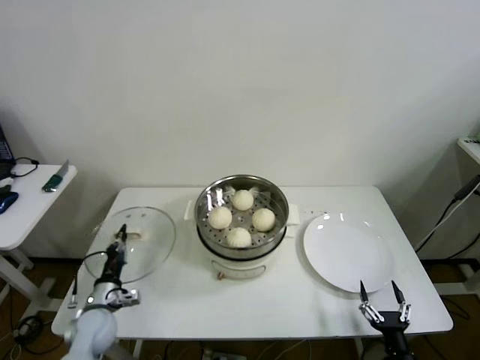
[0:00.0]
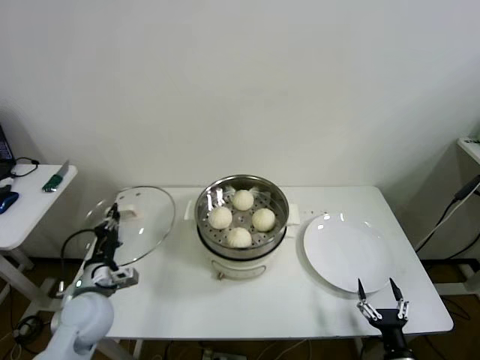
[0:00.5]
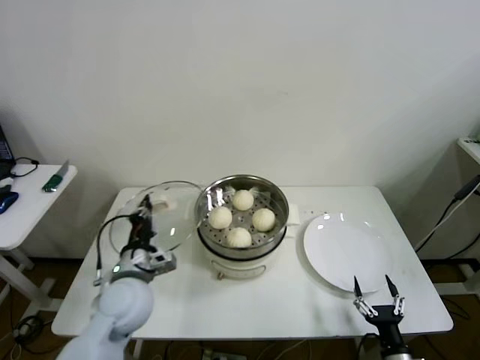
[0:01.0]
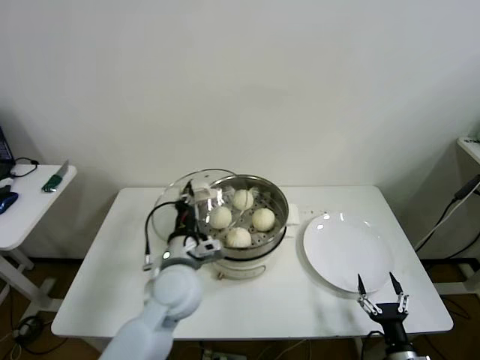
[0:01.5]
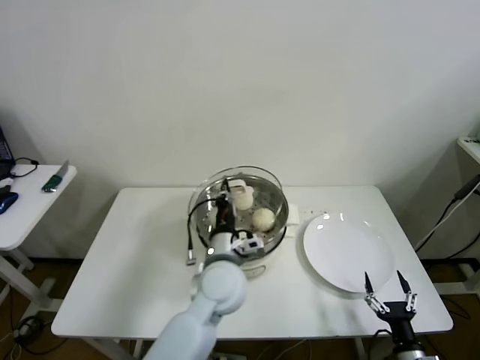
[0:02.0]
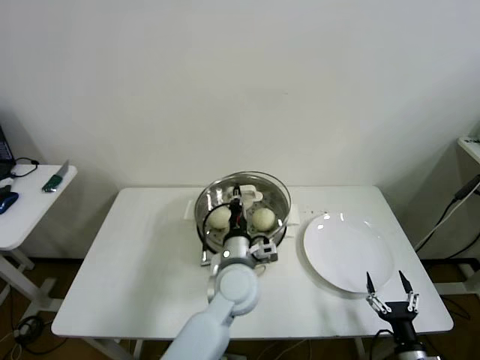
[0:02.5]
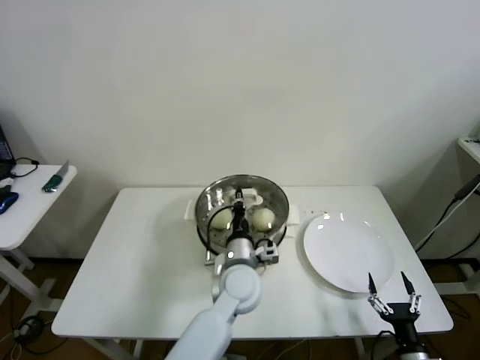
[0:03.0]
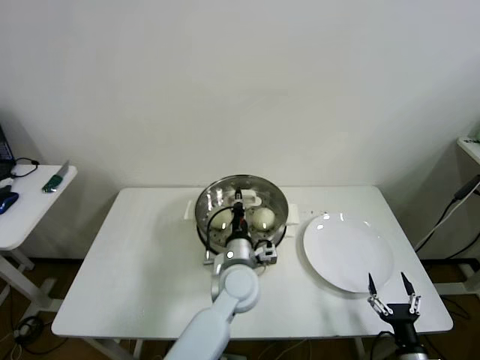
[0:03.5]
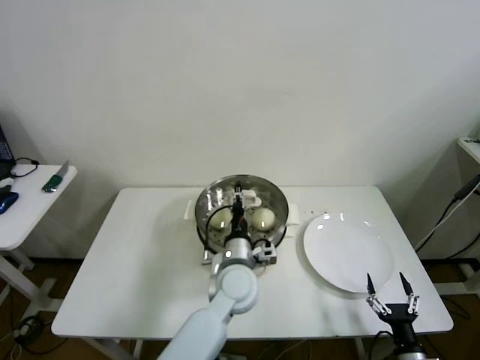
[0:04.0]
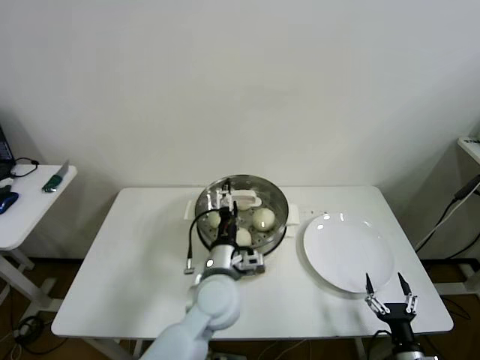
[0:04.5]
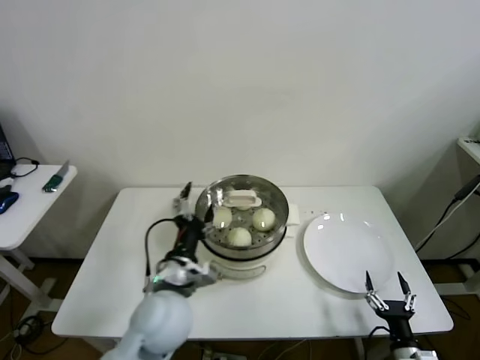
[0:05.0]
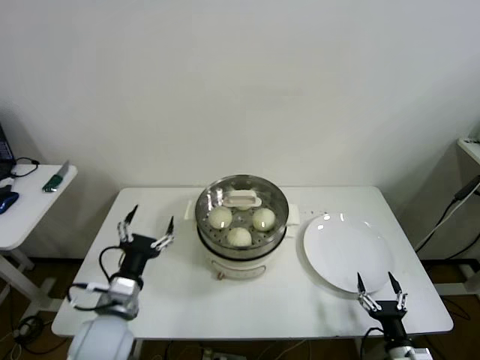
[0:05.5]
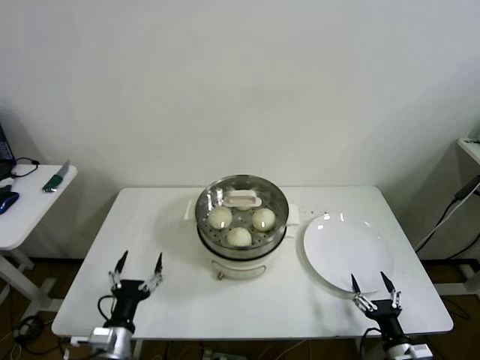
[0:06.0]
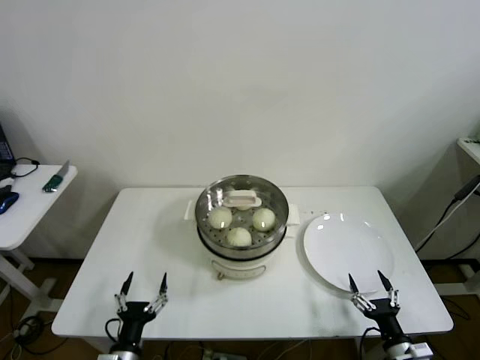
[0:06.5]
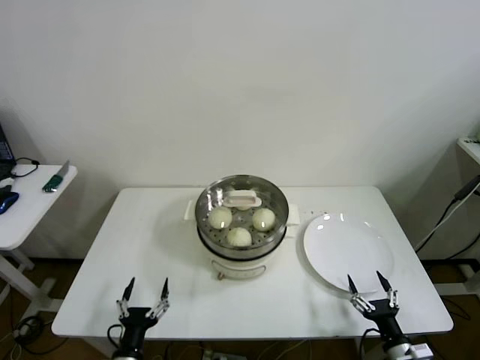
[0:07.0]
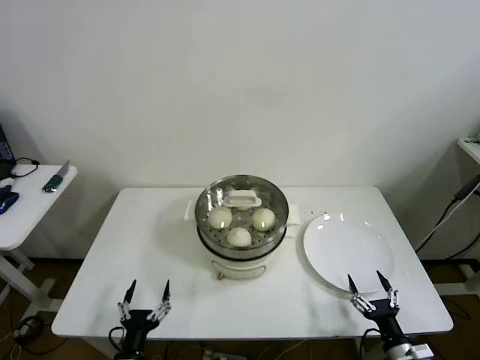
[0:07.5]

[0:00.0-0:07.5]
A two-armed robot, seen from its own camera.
Step, 0:00.0 to 0:03.5: Place the pot lid on the steamer with left gripper.
0:00.0 to 0:02.0: The left gripper moves to the right and upward, roughly 35 cm.
0:02.0 to 0:04.0: The left gripper heads downward, covering some 5 cm, and opens its fingers.
0:04.0 to 0:05.5: The left gripper goes approximately 25 cm to the left and backward, and opens its fingers.
0:05.5 to 0:07.5: The left gripper travels downward and backward by approximately 20 cm.

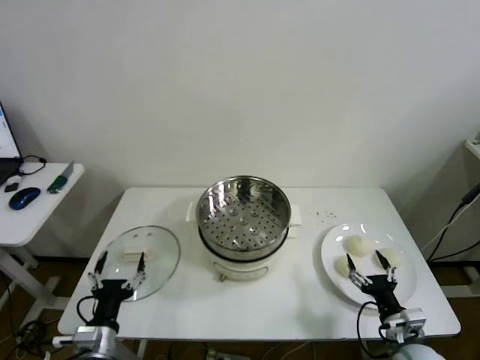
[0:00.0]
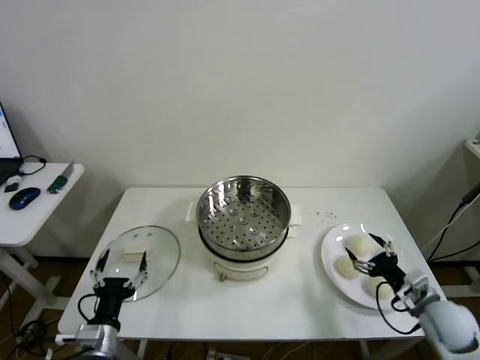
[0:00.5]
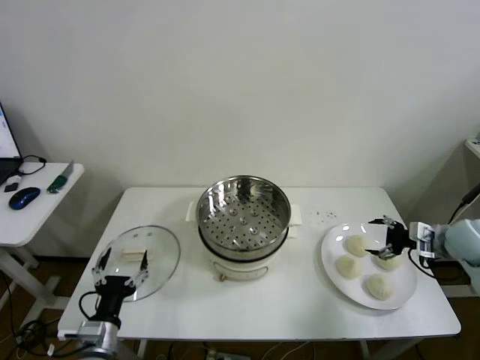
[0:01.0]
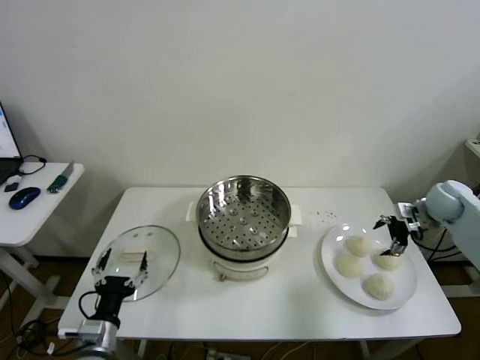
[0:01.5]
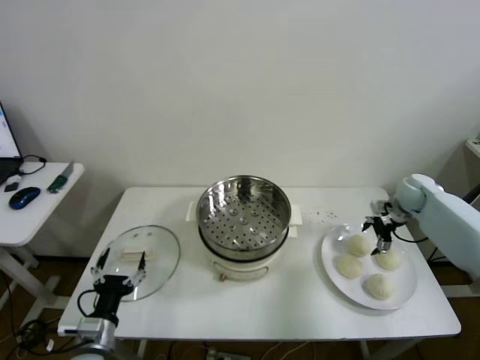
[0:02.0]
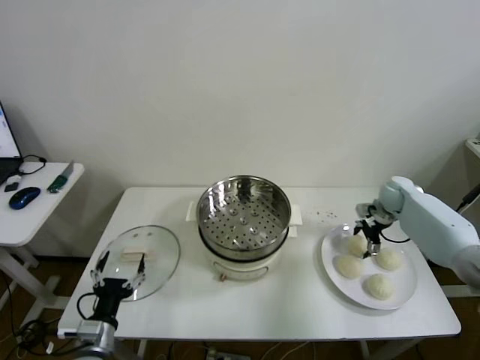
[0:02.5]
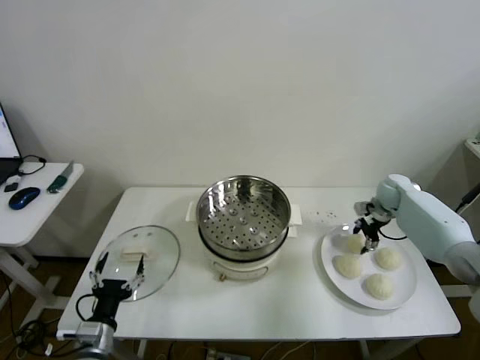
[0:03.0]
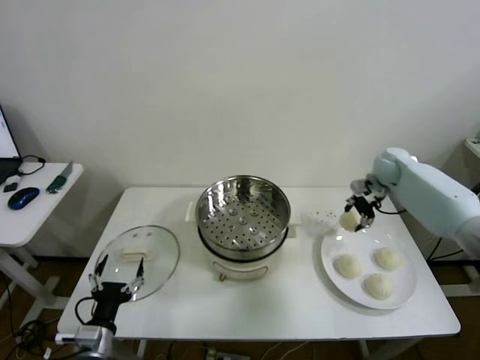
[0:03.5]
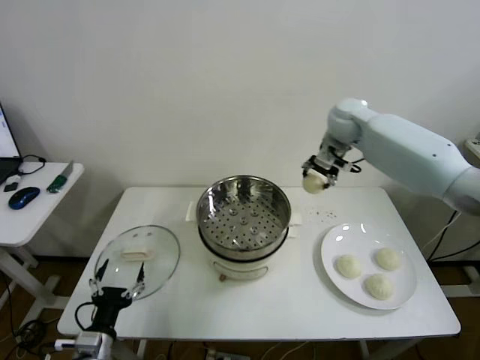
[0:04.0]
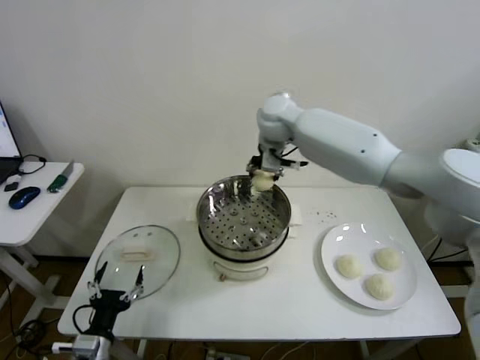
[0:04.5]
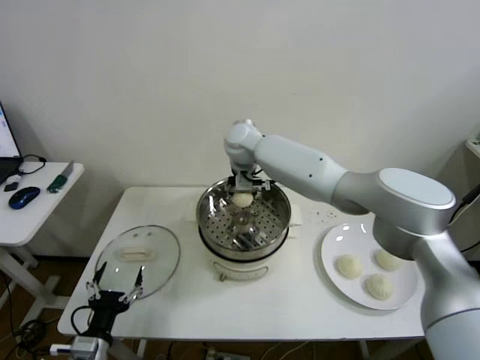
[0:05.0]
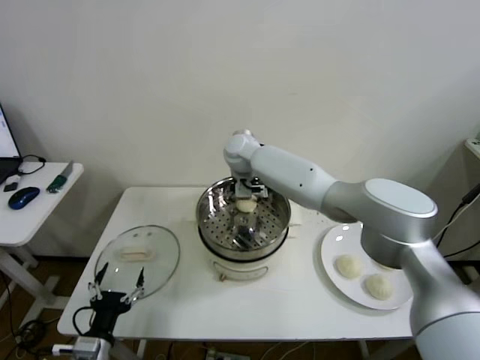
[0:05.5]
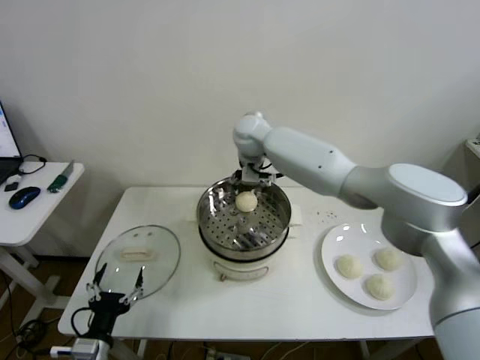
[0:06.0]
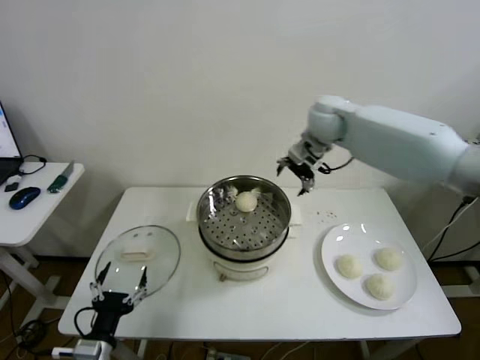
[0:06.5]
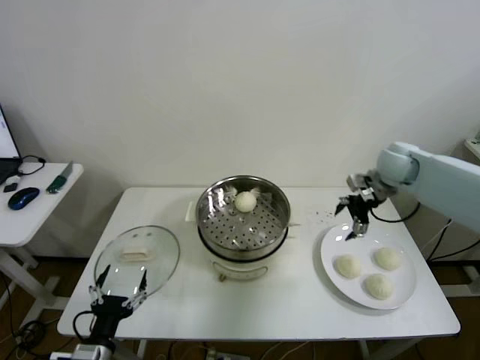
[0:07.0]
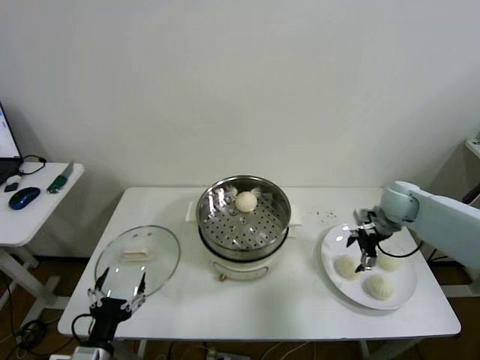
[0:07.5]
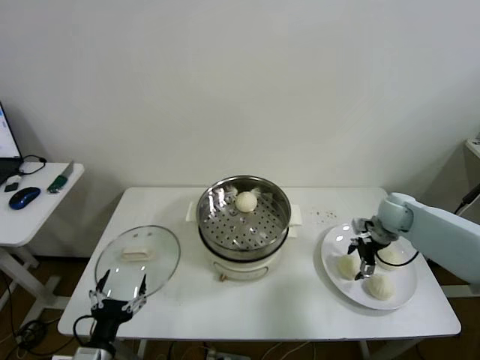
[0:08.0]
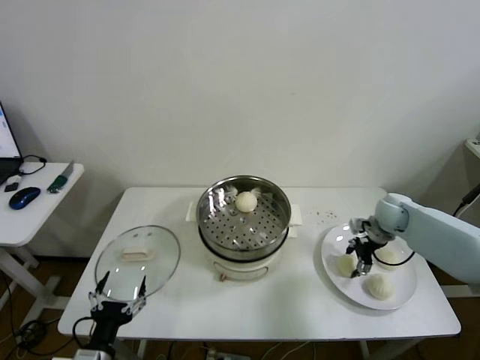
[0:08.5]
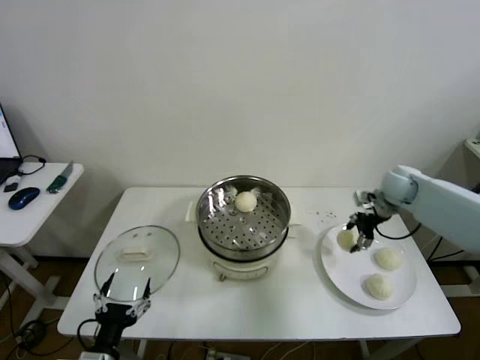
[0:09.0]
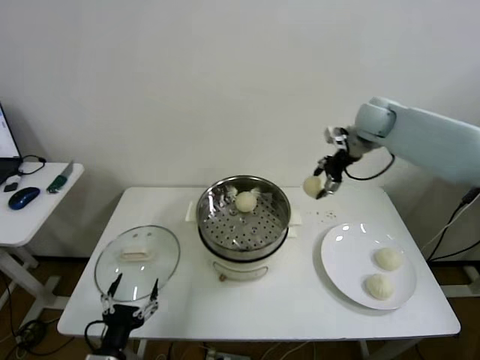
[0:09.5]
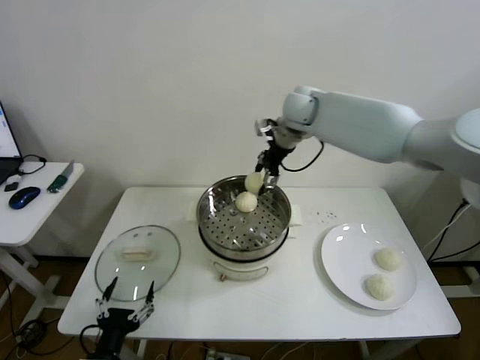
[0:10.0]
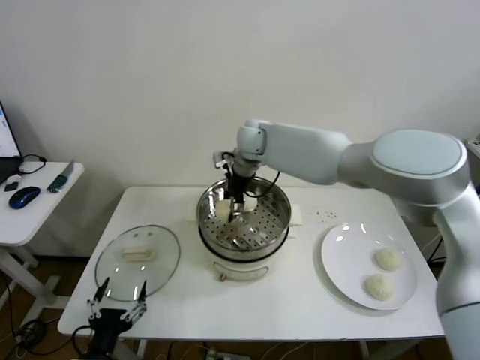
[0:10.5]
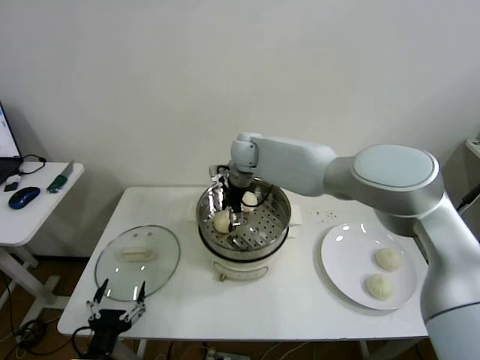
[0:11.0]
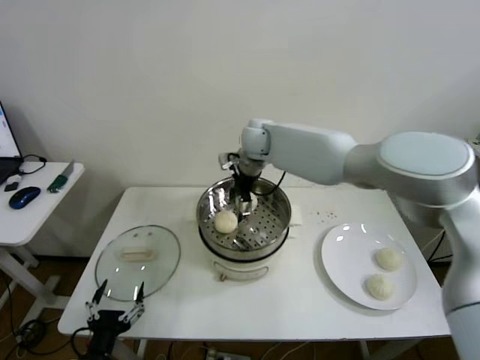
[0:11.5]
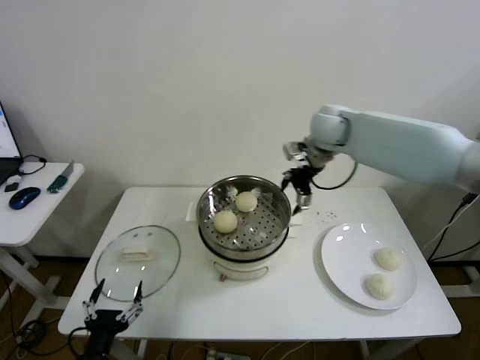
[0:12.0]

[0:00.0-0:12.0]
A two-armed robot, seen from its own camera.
Step, 0:00.0 to 0:02.5: Grasp the baozi in the plate with right gripper.
Step, 0:03.0 to 0:05.0: Place the baozi on the steamer with right gripper.
Step, 0:06.0 to 0:08.0: Grasp the baozi in the plate with right gripper.
Step, 0:08.5 to 0:10.5: Place the baozi on the steamer with right gripper.
0:02.0 to 0:04.0: The right gripper goes about 30 cm to the left and upward, and closes.
0:04.0 to 0:06.0: The right gripper travels to the left by some 15 cm, and opens up.
0:06.0 to 0:08.0: The right gripper heads to the right and downward, covering about 40 cm.
0:08.0 to 0:10.0: The right gripper shifts roughly 35 cm to the left and upward, and closes its fingers.
0:10.0 to 0:12.0: The right gripper is displaced to the right by approximately 10 cm, and opens up.

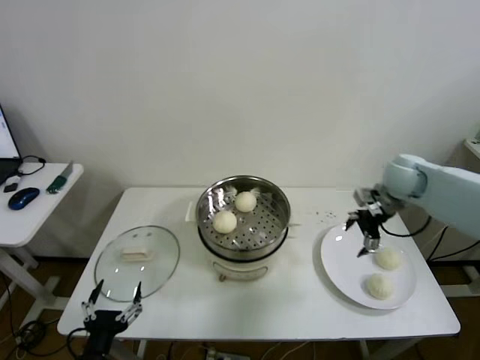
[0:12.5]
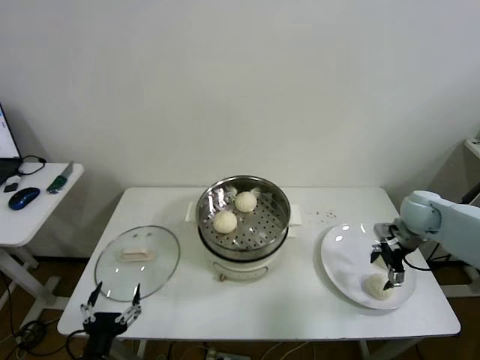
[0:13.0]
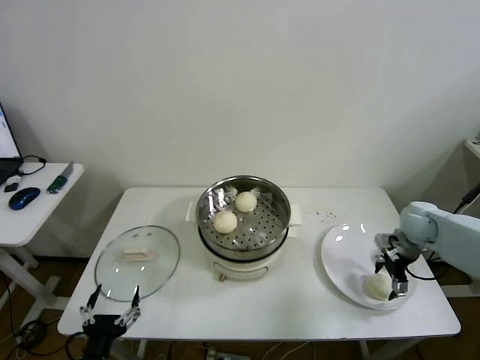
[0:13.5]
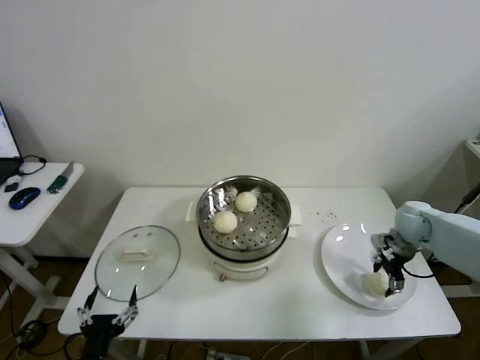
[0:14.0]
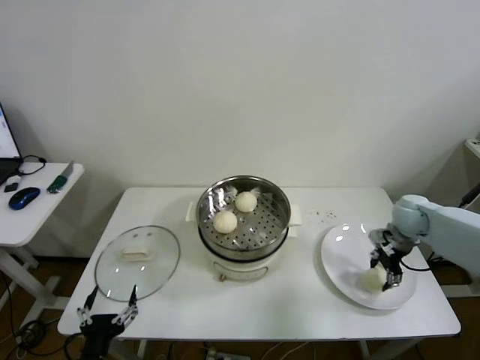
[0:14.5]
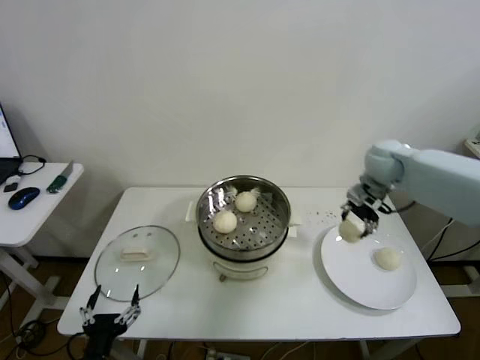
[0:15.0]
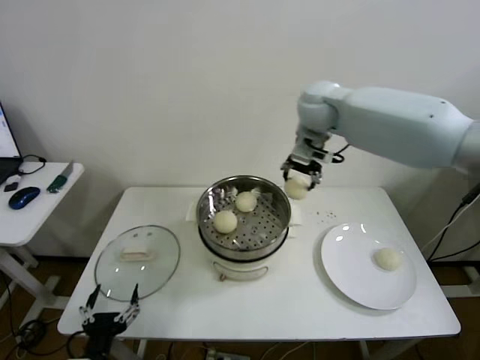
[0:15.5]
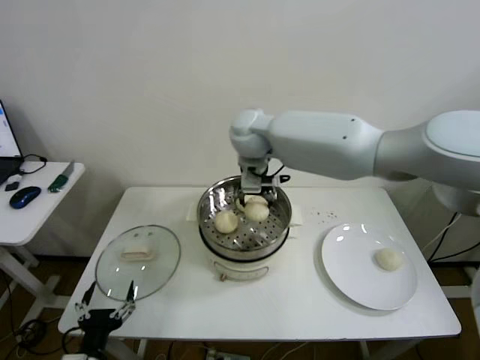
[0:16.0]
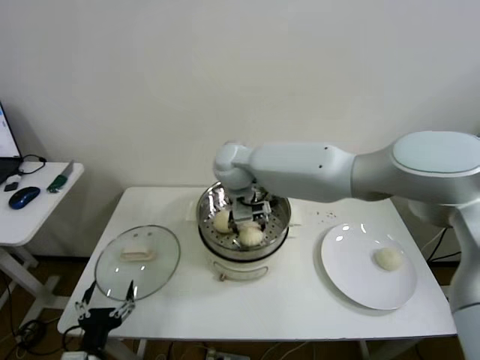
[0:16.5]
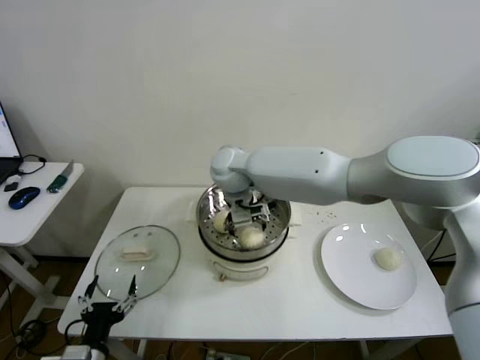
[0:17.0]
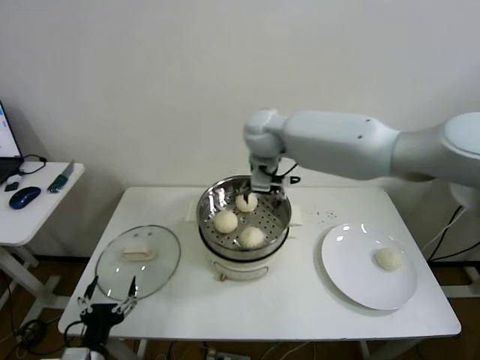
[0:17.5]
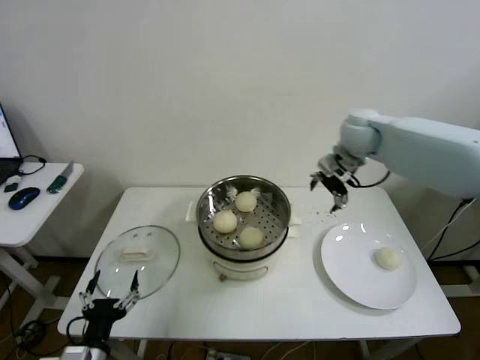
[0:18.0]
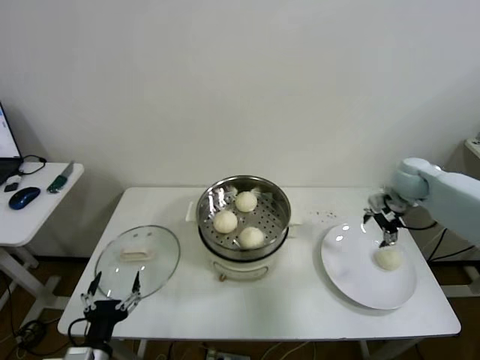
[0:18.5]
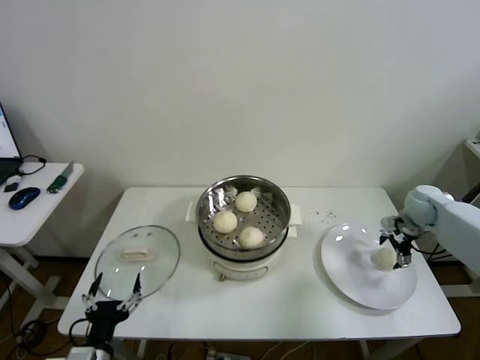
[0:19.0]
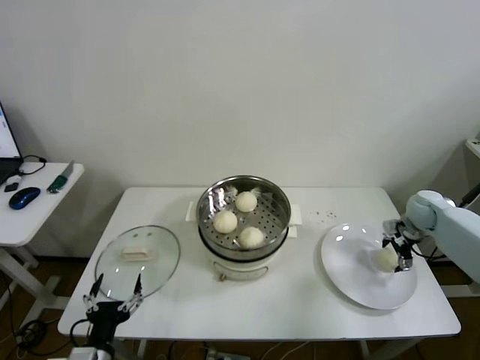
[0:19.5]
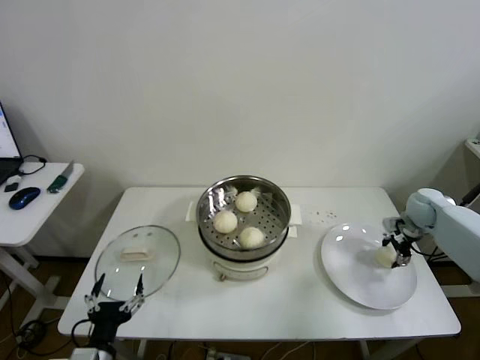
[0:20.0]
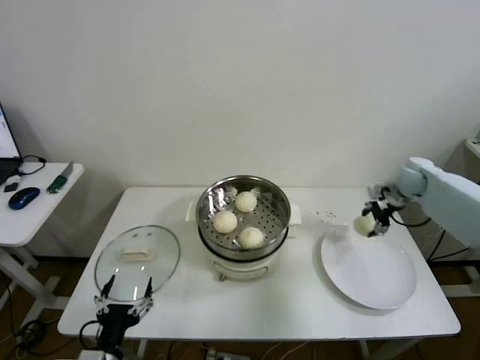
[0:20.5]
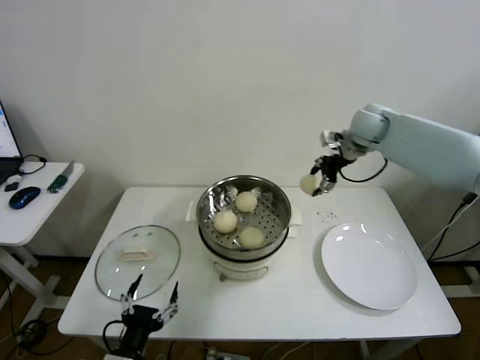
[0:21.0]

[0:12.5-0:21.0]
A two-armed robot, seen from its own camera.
Step, 0:14.0 to 0:16.5: Place the baozi on the steamer with right gripper.
Step, 0:17.0 to 0:19.5: Grasp the baozi in the plate with right gripper.
0:12.5 to 0:14.5: The right gripper is displaced downward by approximately 10 cm, and closes up.
0:14.5 to 0:16.5: The right gripper heads to the left, covering approximately 40 cm.
0:16.5 to 0:19.0: The right gripper travels to the right by some 50 cm, and opens up.
0:19.0 to 0:21.0: The right gripper goes some 25 cm upward, to the left and forward, and closes its fingers.
